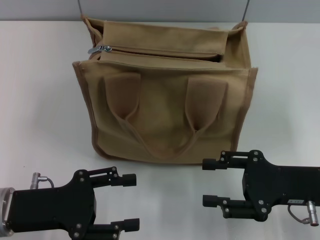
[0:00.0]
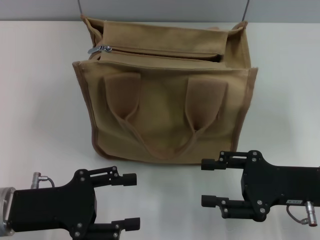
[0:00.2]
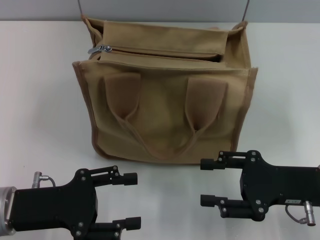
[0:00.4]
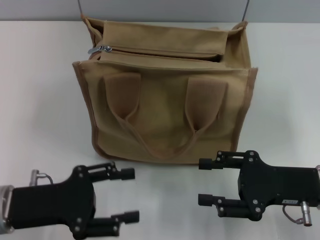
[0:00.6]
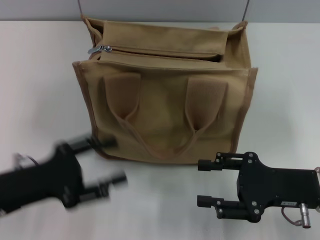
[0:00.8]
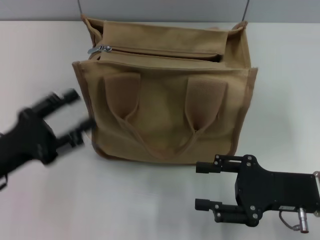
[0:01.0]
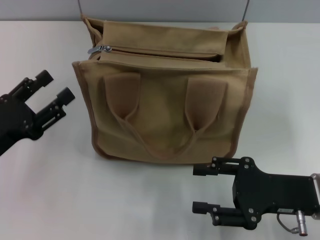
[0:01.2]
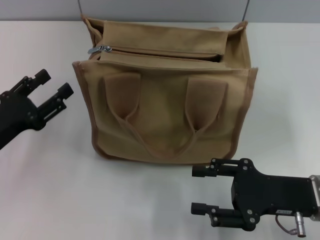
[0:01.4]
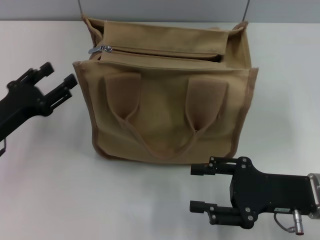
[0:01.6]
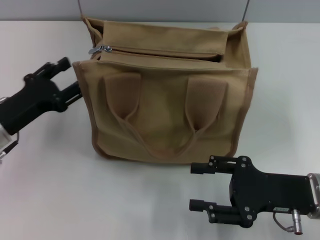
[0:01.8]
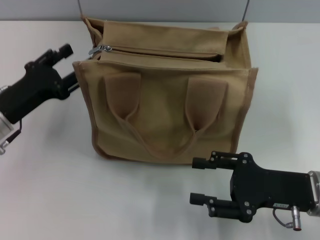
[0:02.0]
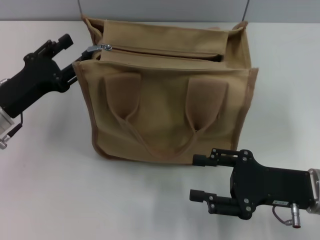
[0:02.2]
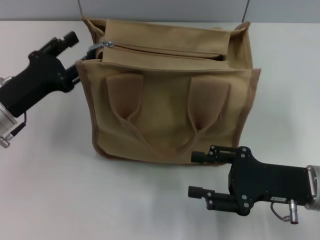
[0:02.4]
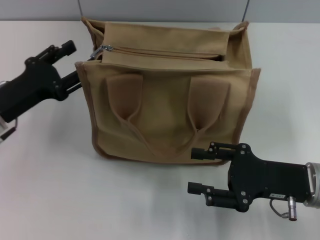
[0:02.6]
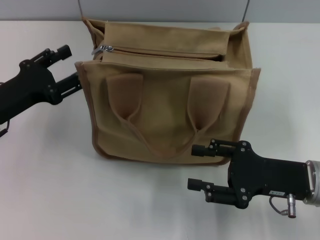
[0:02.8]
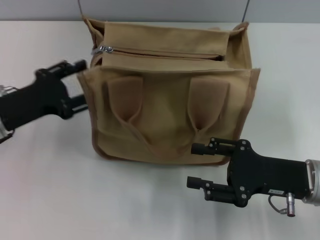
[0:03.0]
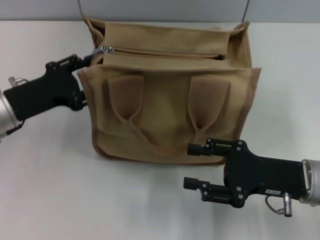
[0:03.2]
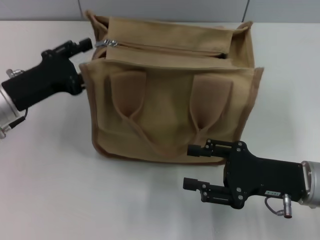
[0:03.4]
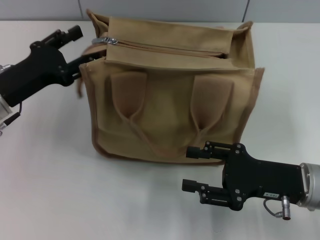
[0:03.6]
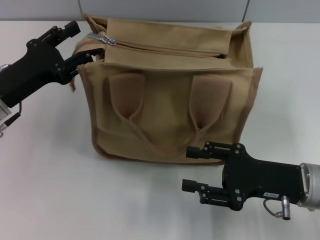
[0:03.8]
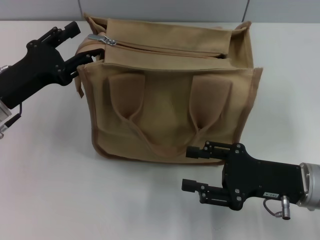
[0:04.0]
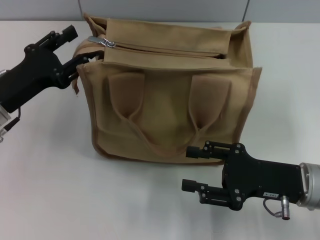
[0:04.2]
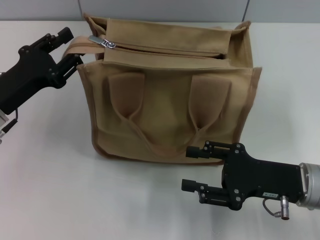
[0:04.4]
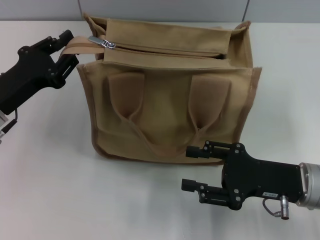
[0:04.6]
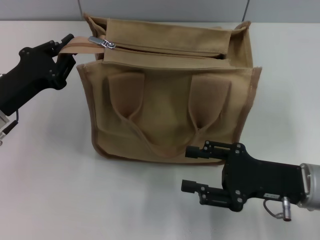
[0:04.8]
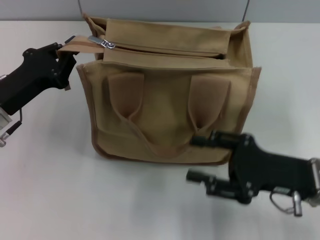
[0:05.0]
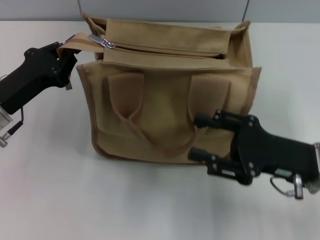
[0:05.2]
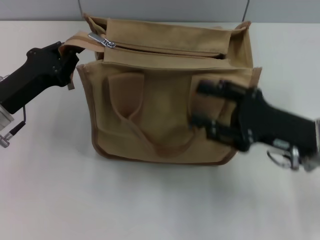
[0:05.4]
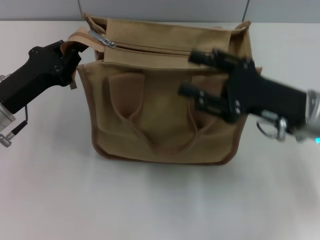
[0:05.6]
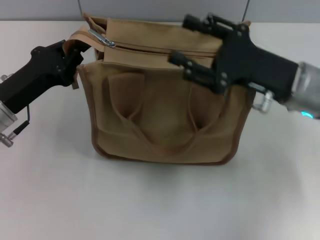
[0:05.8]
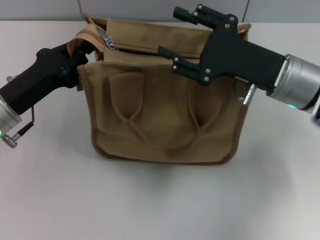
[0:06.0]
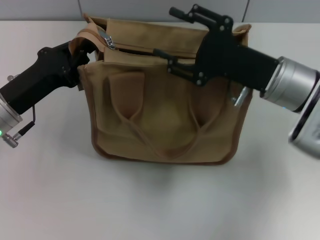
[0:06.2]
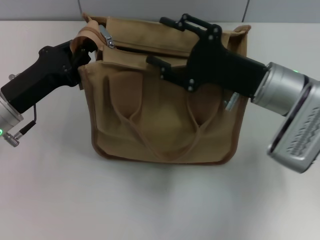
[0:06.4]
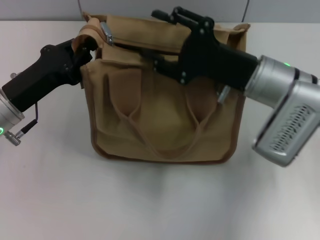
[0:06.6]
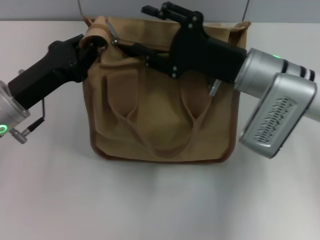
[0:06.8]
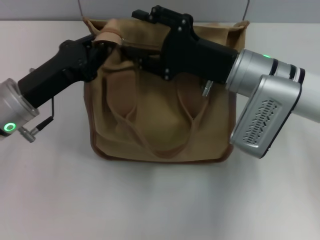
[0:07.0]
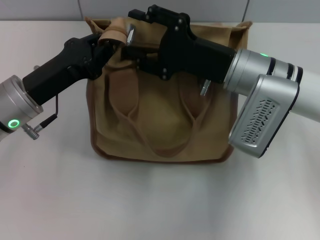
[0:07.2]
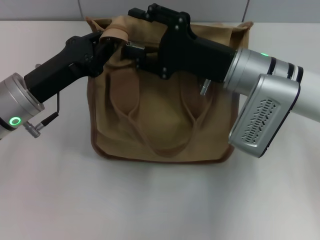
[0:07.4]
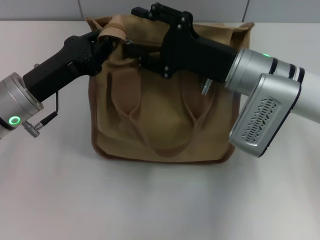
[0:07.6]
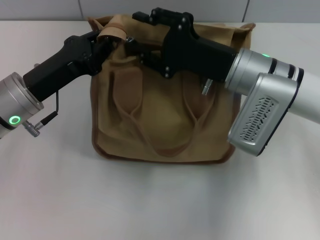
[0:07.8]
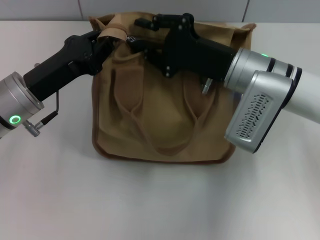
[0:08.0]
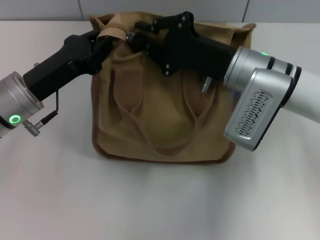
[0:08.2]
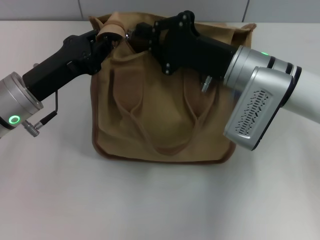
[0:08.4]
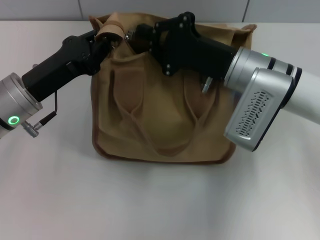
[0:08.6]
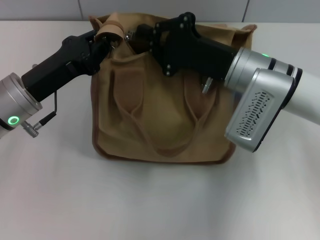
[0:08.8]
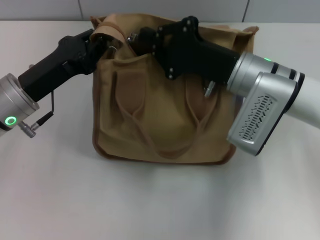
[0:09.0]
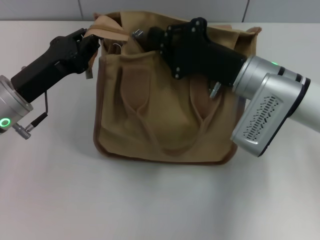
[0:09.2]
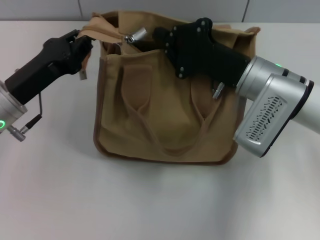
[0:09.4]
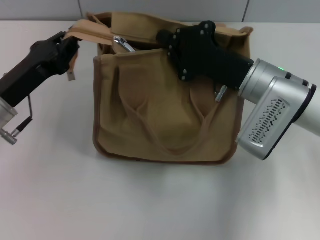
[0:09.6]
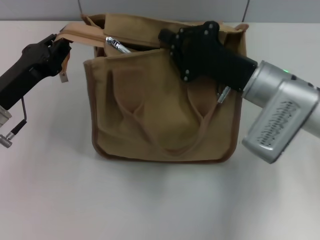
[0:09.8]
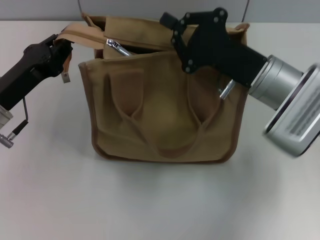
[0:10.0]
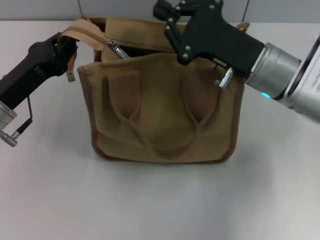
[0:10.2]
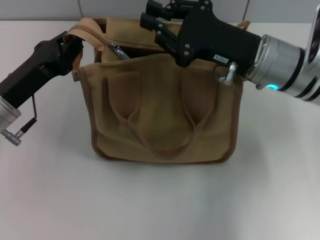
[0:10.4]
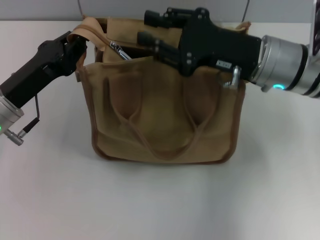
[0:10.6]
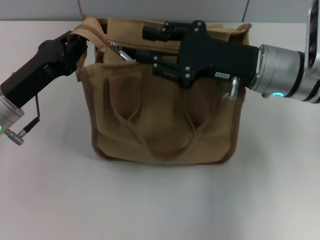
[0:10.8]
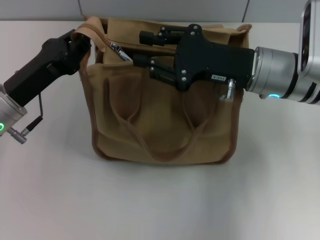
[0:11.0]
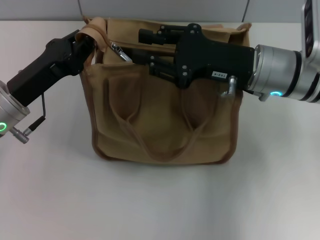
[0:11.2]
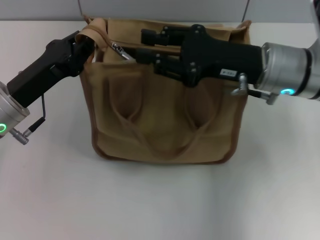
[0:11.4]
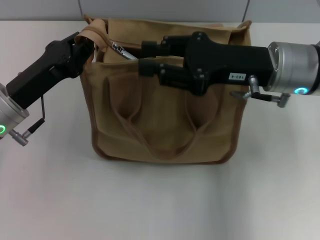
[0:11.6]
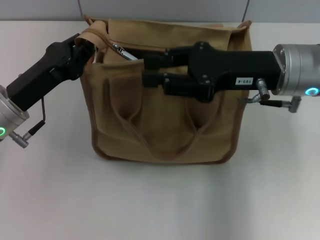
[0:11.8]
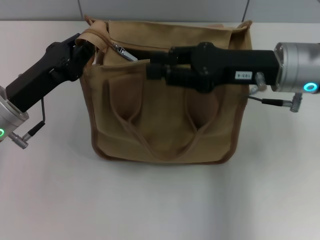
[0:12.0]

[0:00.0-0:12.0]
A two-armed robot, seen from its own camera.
0:00.0 to 0:01.6: The left gripper travels forward by some 5 cm.
0:01.6 to 0:03.0: The grippers stay close to where they were, moving slightly.
0:03.0 to 0:04.4: The grippers move only a little.
0:04.4 to 0:06.0: The left gripper closes up. Meanwhile the right gripper shifts approximately 10 cm forward and upward.
0:06.0 to 0:07.6: The right gripper ends up approximately 5 cm from where it was.
0:07.6 to 0:09.0: The right gripper closes.
0:10.4 to 0:12.0: The right gripper opens.

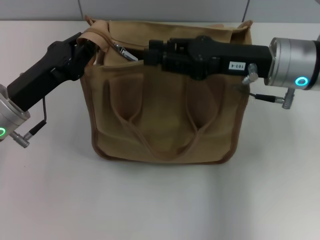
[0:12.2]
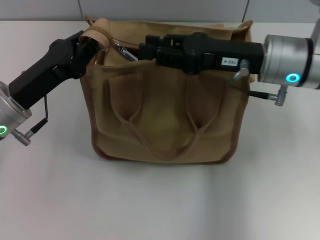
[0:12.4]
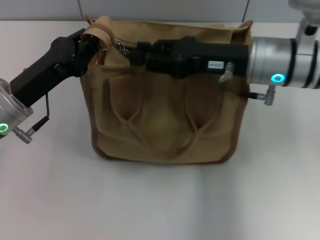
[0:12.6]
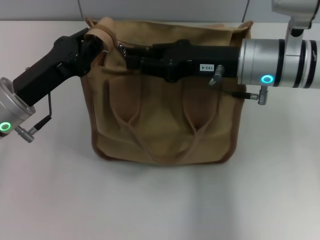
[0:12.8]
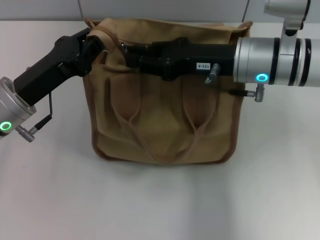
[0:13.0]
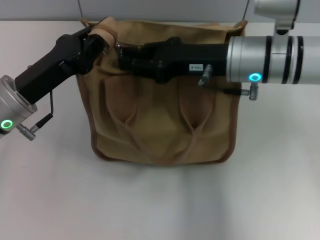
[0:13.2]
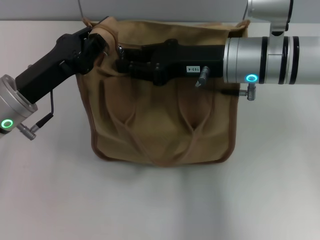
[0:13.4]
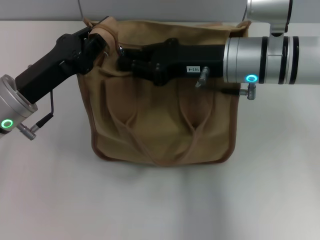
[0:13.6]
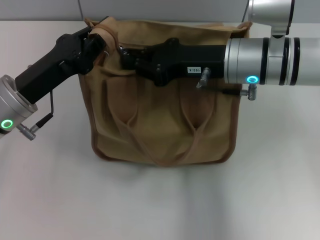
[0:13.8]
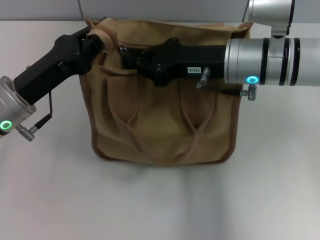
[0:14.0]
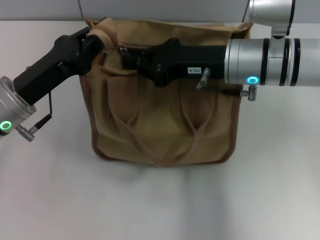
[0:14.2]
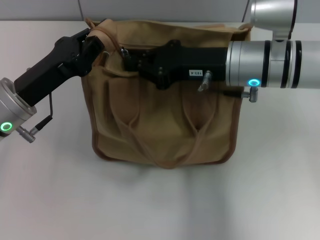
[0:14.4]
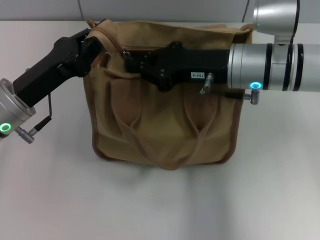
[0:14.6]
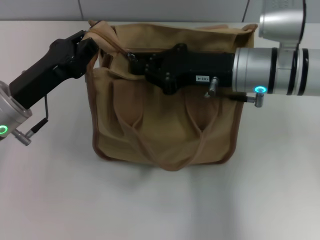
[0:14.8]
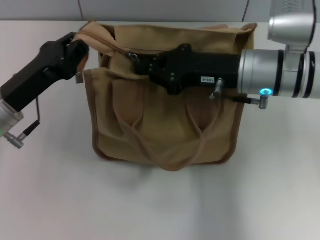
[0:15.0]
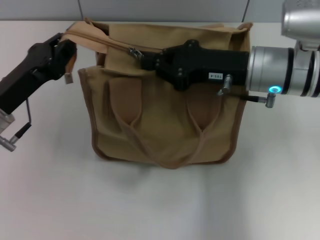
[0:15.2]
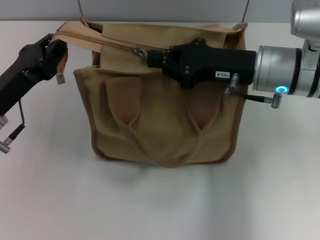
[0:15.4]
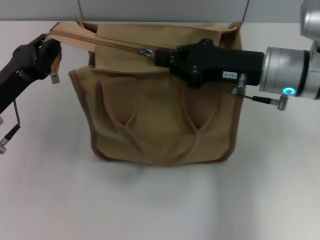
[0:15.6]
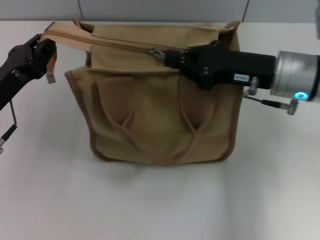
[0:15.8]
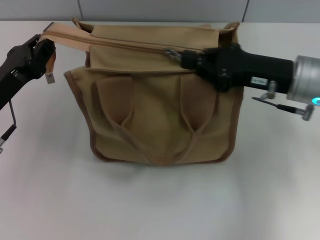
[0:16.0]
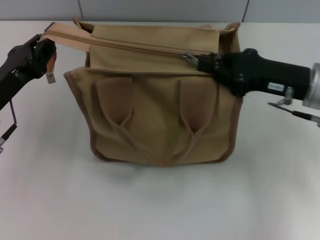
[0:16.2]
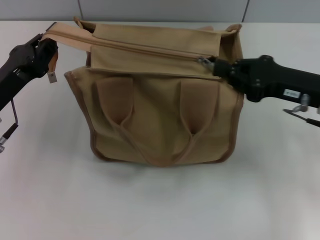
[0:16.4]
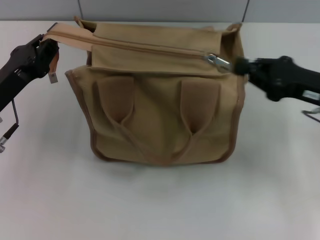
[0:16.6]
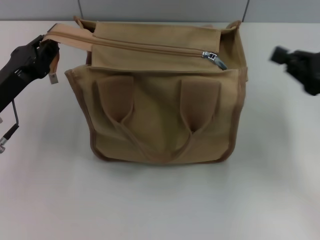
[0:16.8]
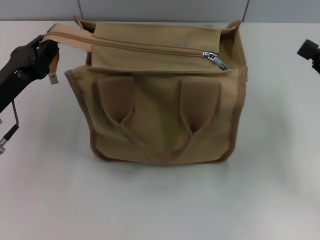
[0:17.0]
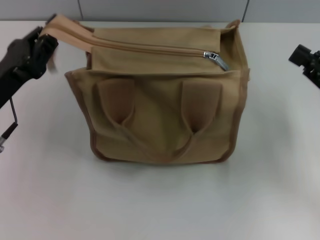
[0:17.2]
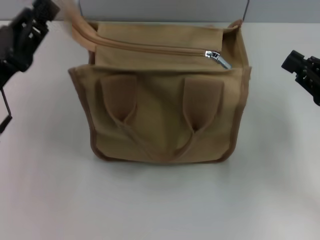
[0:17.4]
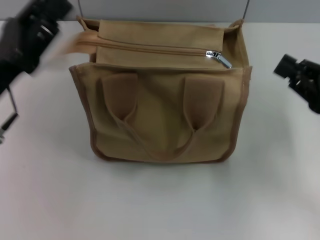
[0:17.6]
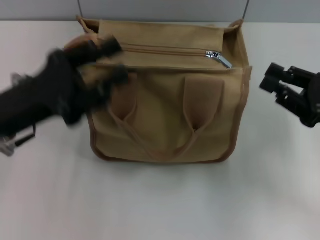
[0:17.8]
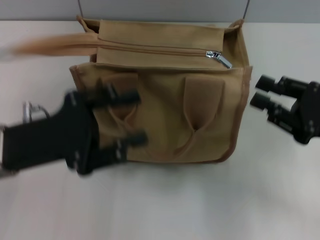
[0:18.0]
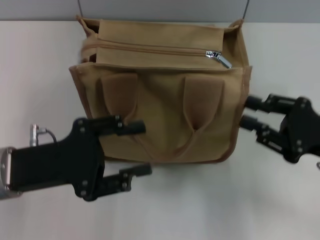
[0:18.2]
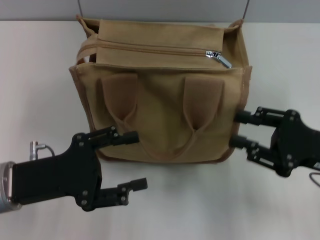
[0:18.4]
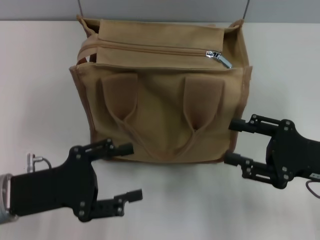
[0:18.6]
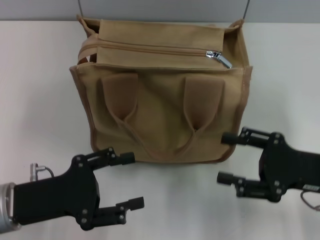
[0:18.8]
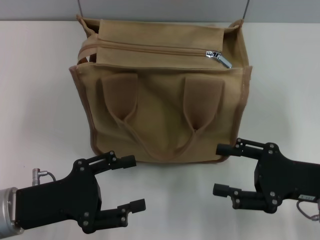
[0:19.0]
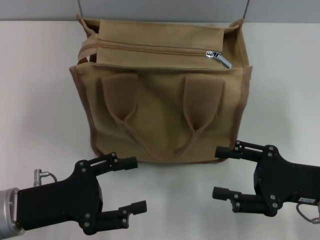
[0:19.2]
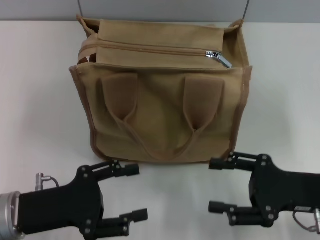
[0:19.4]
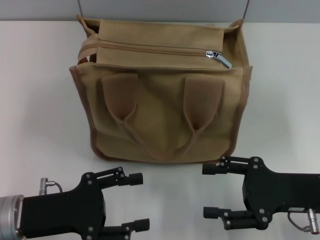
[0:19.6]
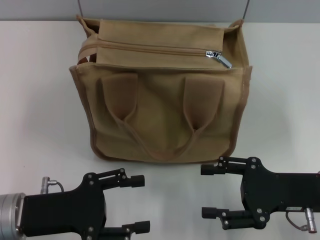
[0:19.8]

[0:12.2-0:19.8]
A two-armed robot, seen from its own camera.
Step, 0:12.2 to 0:16.4: Pull up the zipper with your right hand.
Step, 0:16.8 to 0:17.4: Grab the zipper with your left hand.
0:12.2 to 0:13.8: The right gripper ends up some 5 cm from where it was.
0:15.2 to 0:16.8: The right gripper goes approximately 15 cm to the right and backward.
0:16.8 to 0:18.2: The left gripper shifts by some 5 cm, and opens its fingers, while the right gripper changes place by some 5 cm, and opens its fingers.
0:18.2 to 0:19.8: The left gripper moves some 5 cm; the right gripper moves about 5 cm, and opens up.

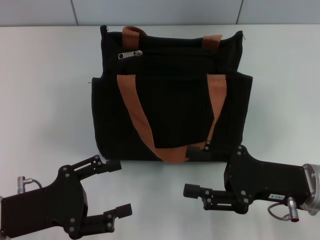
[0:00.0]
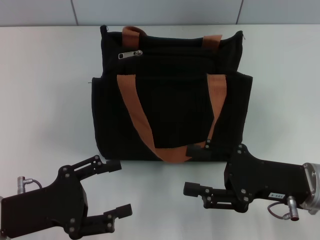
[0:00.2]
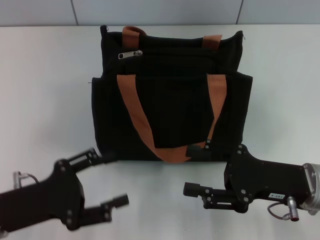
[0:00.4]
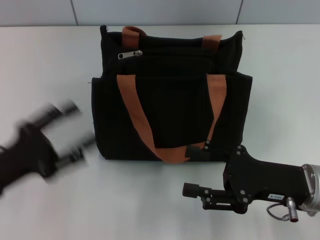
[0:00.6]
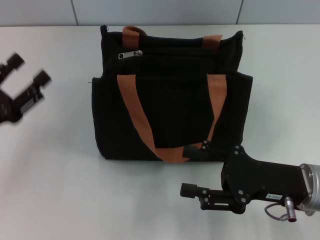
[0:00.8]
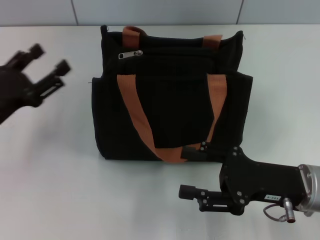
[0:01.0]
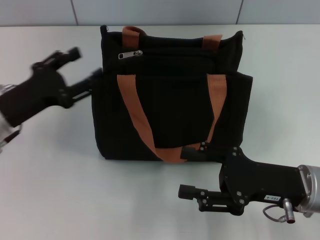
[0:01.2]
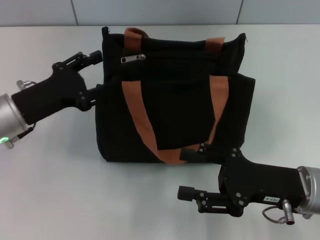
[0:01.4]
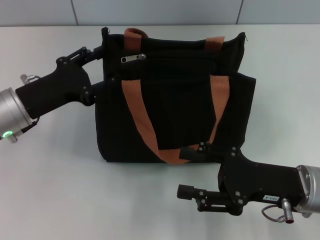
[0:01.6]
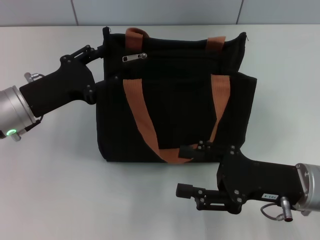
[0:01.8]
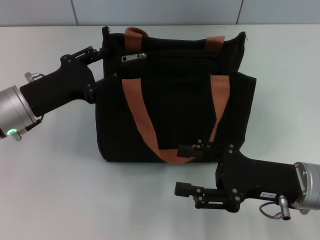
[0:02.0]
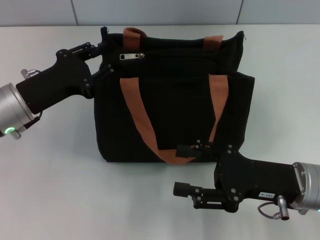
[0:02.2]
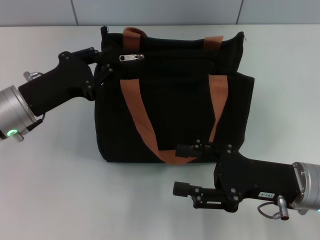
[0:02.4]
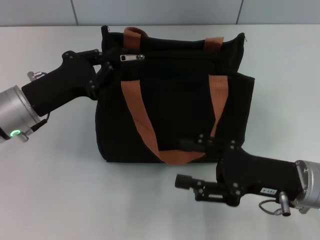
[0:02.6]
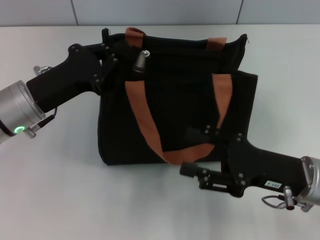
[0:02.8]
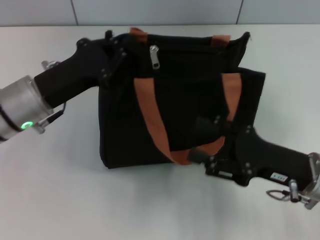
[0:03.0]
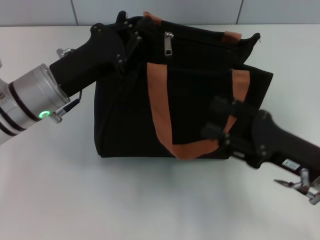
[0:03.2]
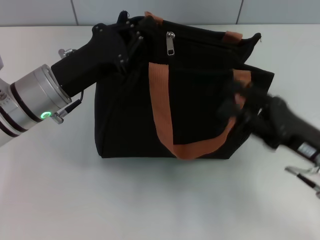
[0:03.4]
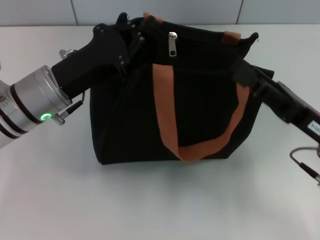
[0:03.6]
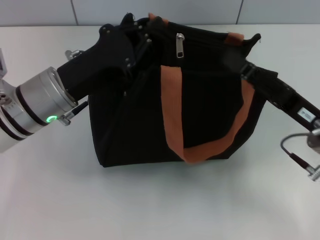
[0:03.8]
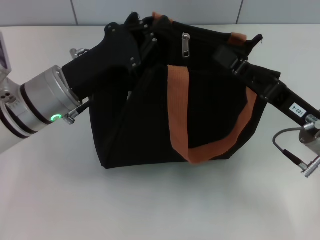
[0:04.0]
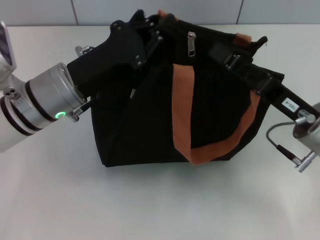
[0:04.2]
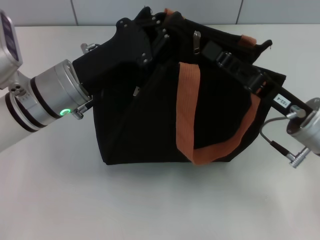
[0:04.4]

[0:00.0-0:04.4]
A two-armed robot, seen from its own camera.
0:00.0 to 0:01.4: The left gripper is displaced forward by approximately 10 cm.
0:01.4 to 0:03.0: The left gripper closes up.
0:03.0 to 0:04.4: The right gripper ends up some 5 cm from where it was, and closes its fingers; the left gripper moves some 5 cm.
